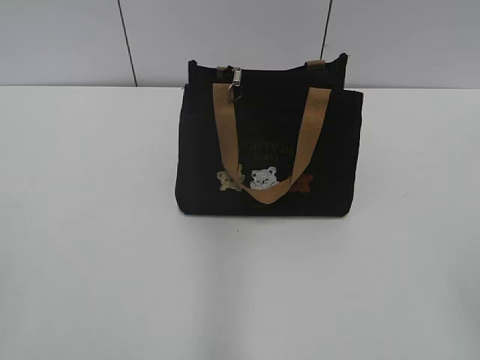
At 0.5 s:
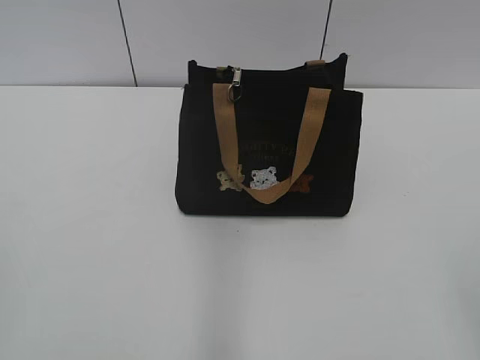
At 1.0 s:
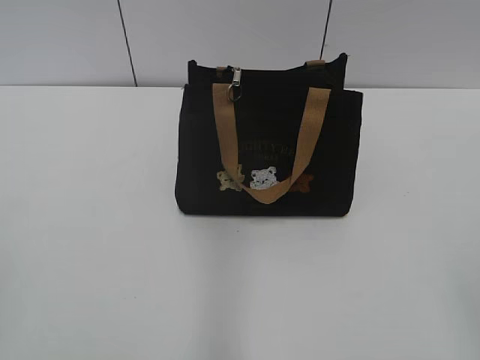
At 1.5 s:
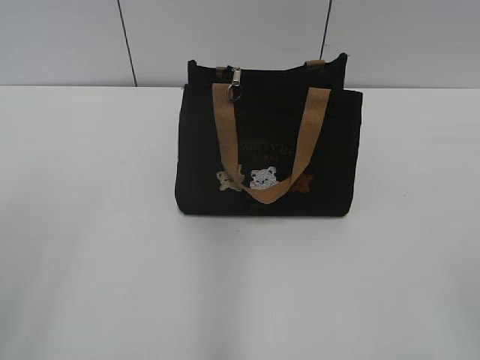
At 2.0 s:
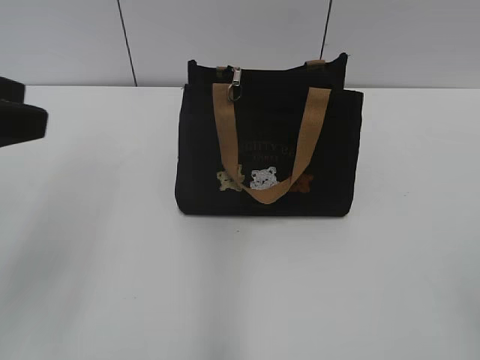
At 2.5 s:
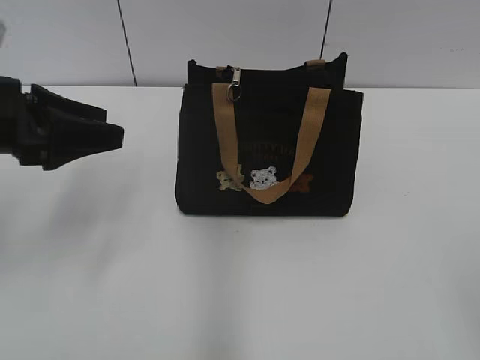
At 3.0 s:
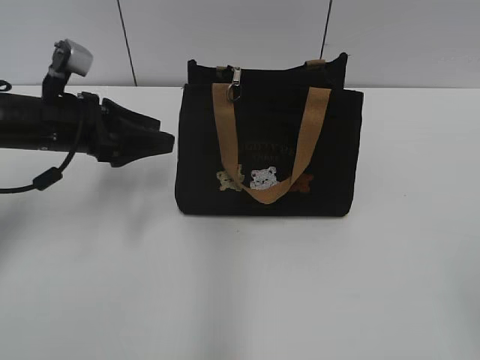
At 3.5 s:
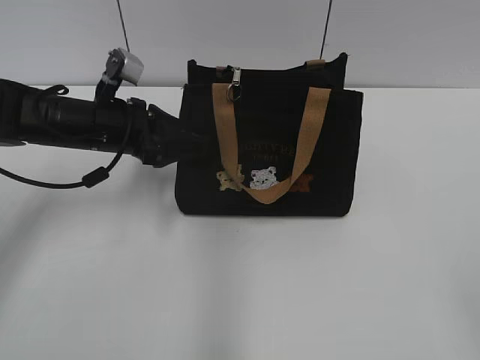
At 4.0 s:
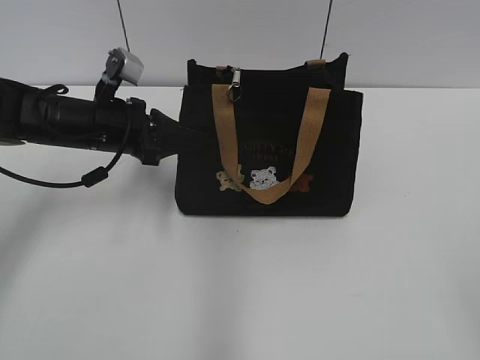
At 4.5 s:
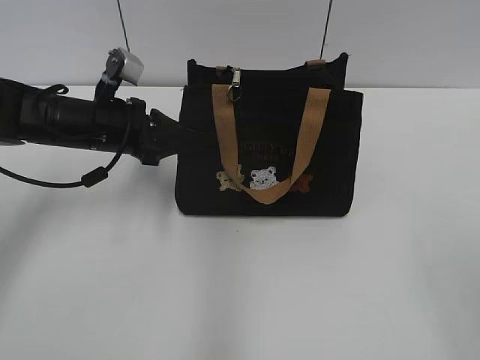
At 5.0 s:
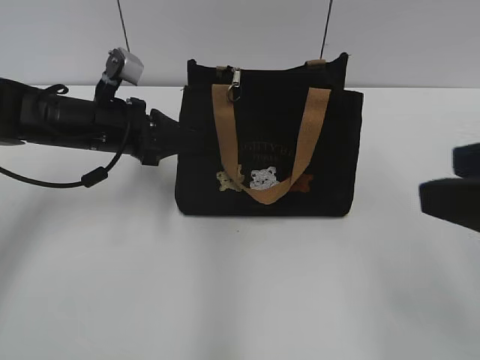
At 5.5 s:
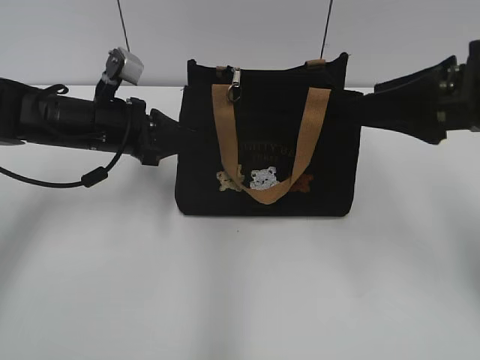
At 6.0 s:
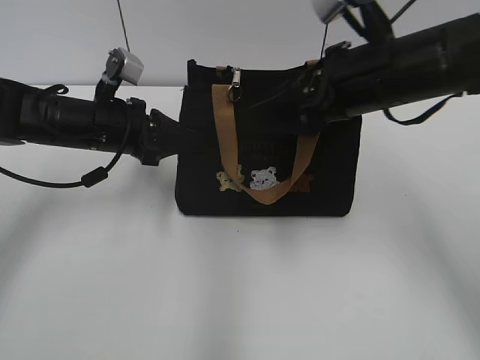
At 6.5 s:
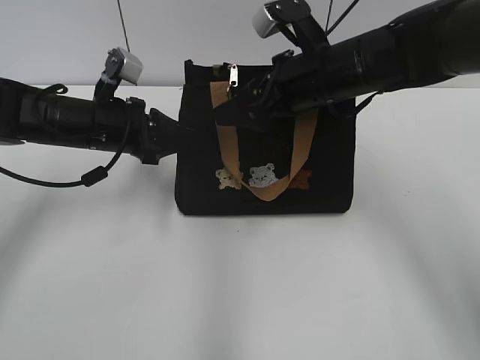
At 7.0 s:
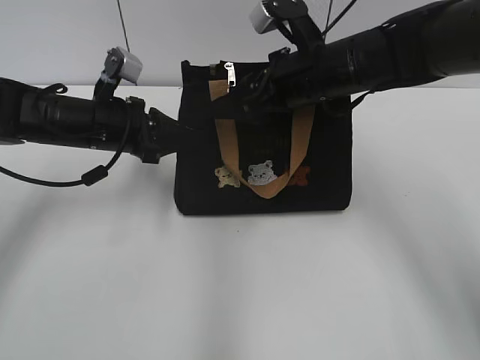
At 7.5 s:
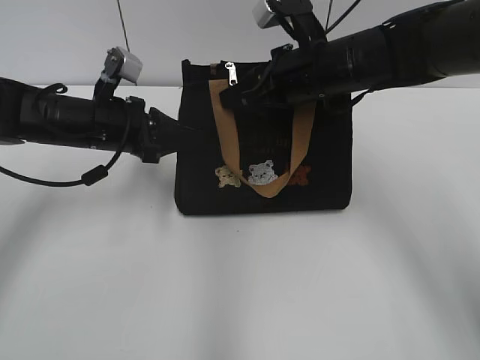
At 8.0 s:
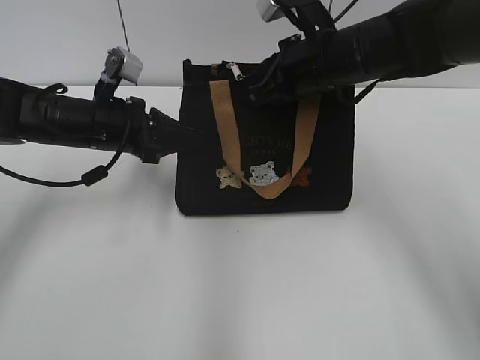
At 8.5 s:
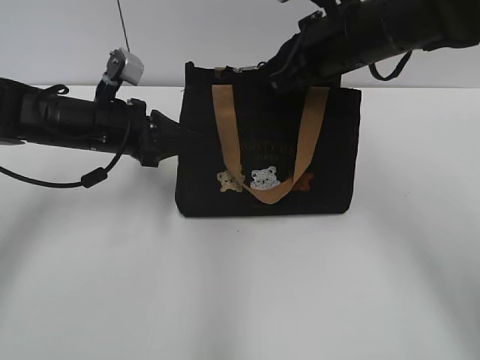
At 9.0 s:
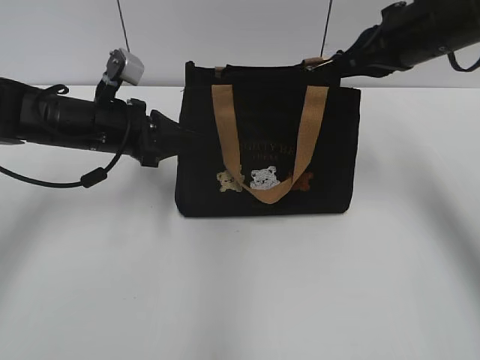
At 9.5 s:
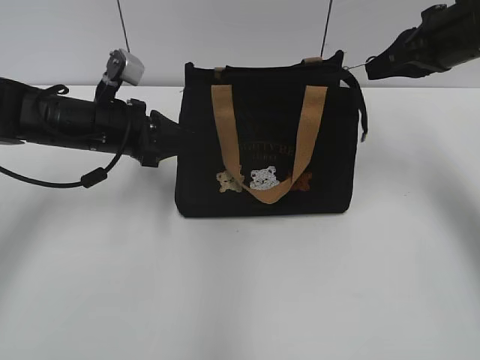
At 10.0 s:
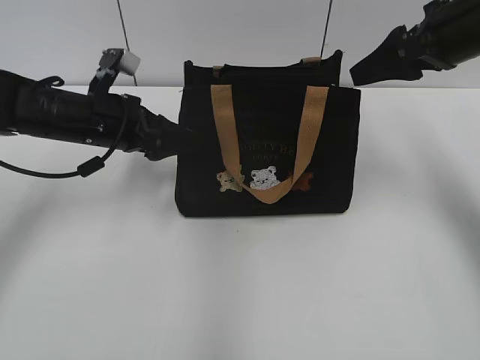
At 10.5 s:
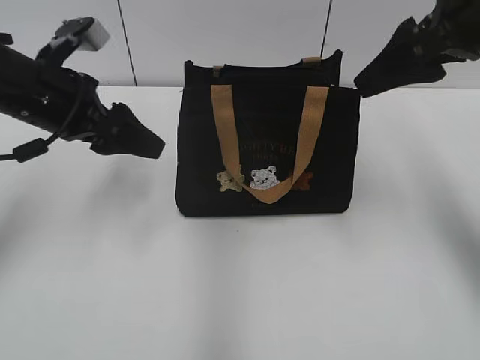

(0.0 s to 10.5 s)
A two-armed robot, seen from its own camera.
Step, 0.0 s - 9.5 s: Pull open the zipper with your right hand.
2.0 s - 4.0 s: The left gripper moves forward, downward and to the right, about 25 cm, and closes its fingers.
4.0 s - 6.5 s: The right gripper heads forward and to the left, covering approximately 40 cm.
6.5 s - 8.5 s: The right gripper closes its fingers.
8.5 s - 10.5 s: The left gripper heads upward, covering approximately 5 cm, and opens. Meanwhile the right gripper goes some 15 cm to the right, upward and backward, and opens up.

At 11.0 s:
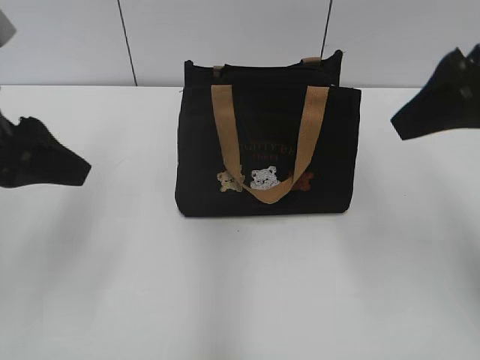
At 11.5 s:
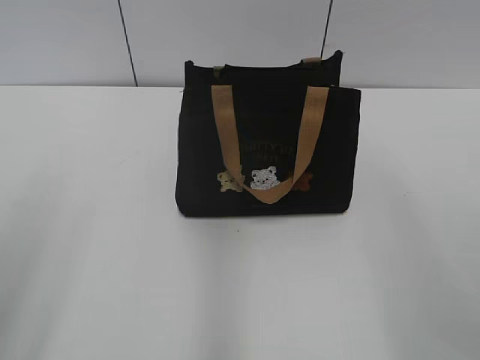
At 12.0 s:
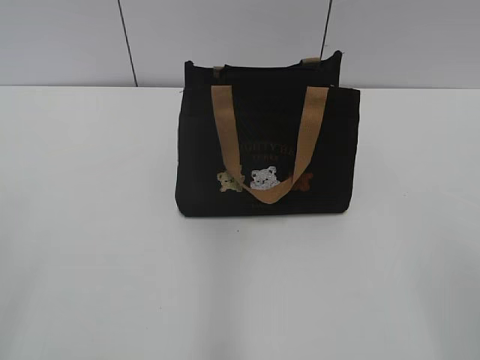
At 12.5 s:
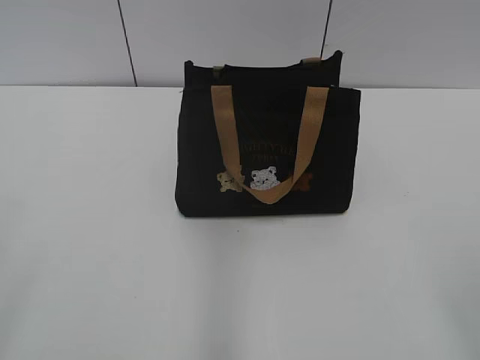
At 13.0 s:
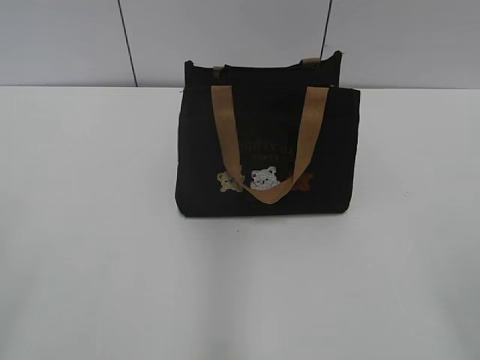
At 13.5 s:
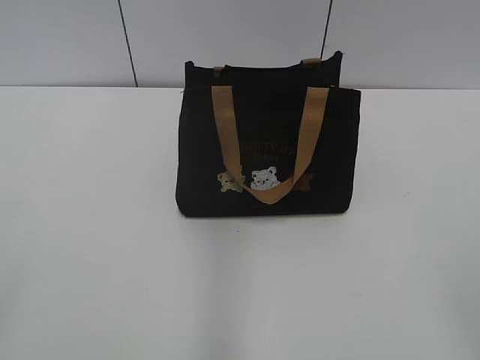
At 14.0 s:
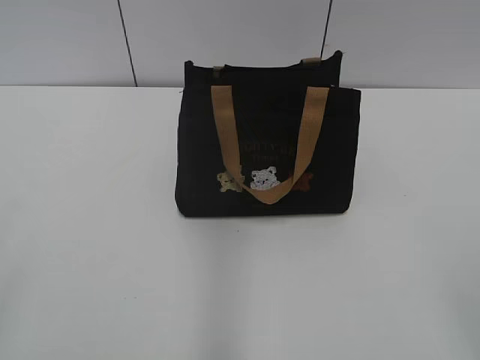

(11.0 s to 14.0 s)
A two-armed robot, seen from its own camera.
11.0 s - 12.5 s: The two grippers go some 25 cm backward.
